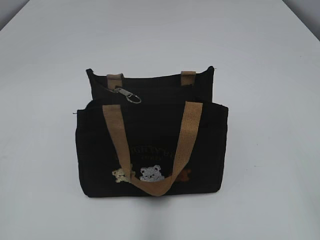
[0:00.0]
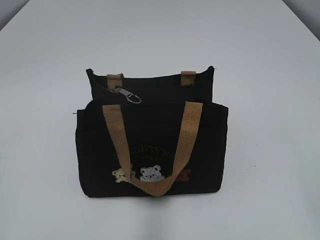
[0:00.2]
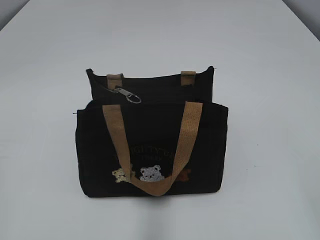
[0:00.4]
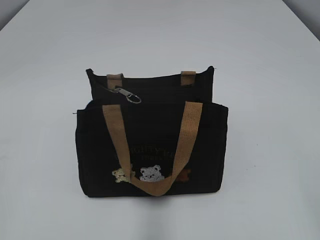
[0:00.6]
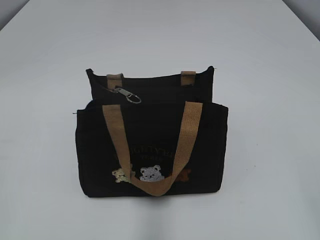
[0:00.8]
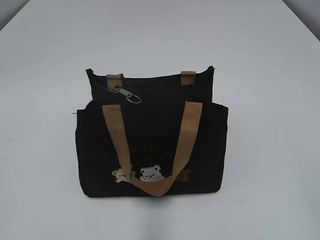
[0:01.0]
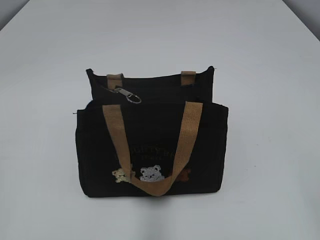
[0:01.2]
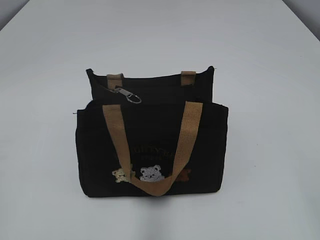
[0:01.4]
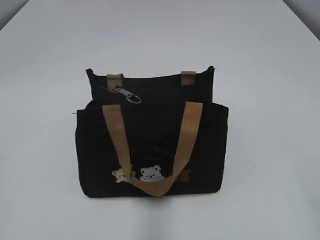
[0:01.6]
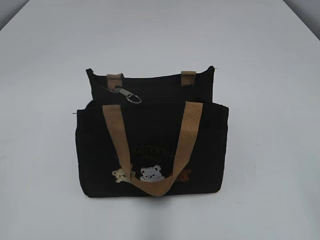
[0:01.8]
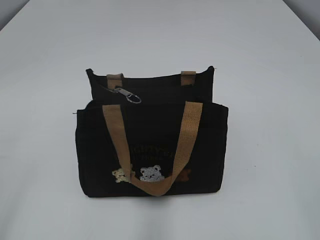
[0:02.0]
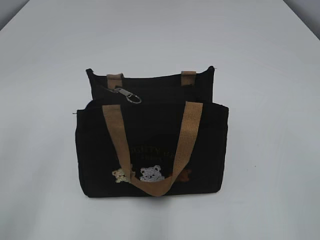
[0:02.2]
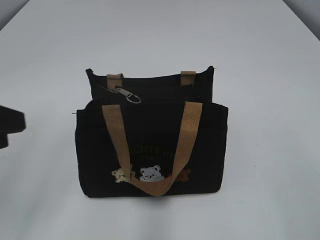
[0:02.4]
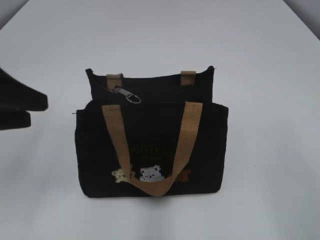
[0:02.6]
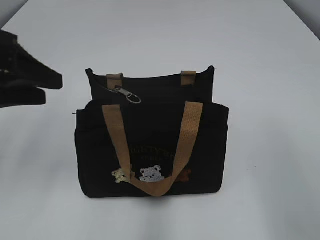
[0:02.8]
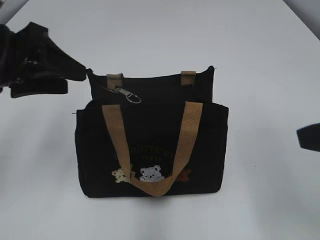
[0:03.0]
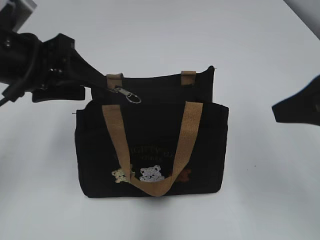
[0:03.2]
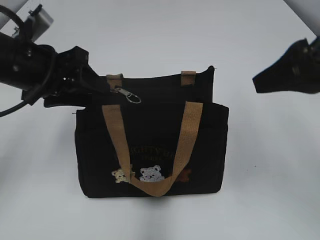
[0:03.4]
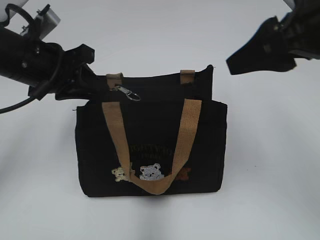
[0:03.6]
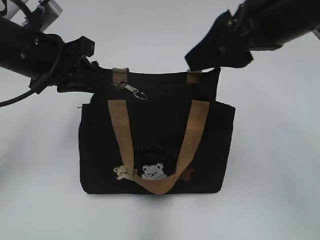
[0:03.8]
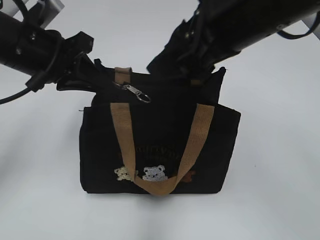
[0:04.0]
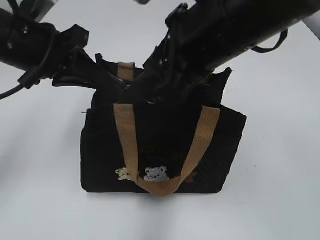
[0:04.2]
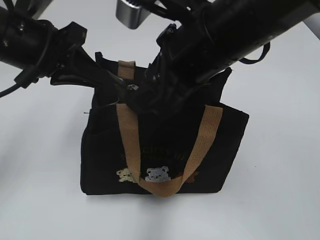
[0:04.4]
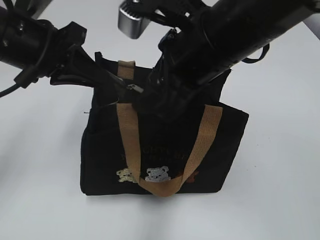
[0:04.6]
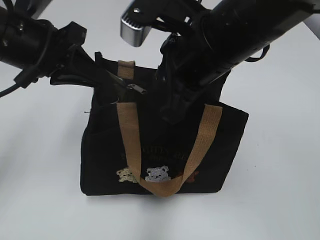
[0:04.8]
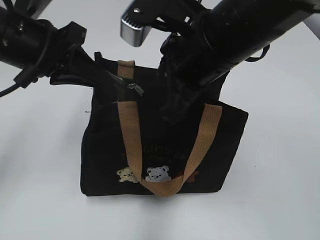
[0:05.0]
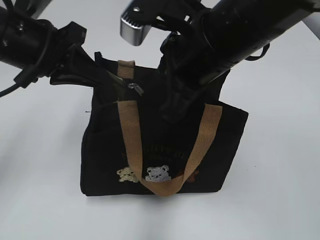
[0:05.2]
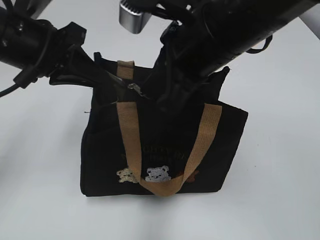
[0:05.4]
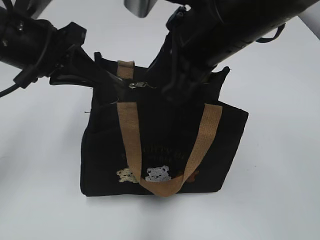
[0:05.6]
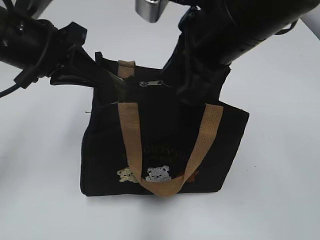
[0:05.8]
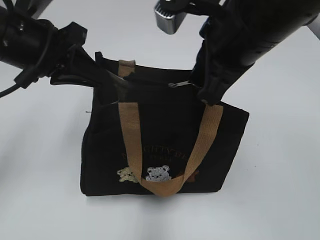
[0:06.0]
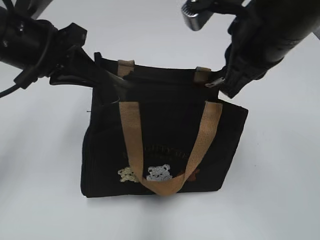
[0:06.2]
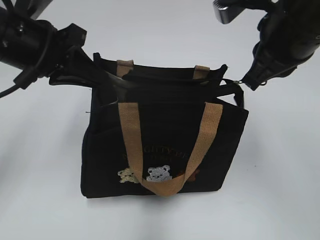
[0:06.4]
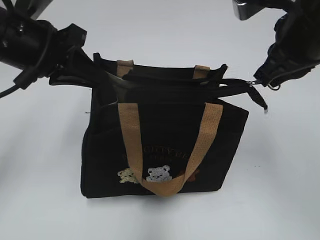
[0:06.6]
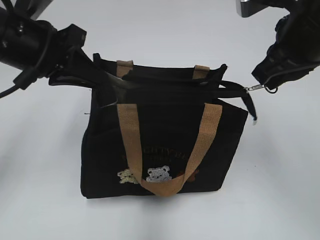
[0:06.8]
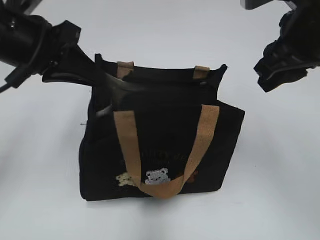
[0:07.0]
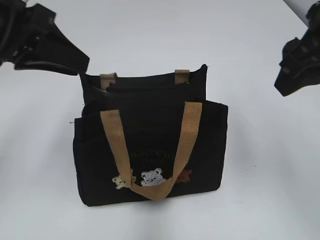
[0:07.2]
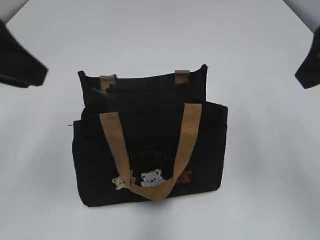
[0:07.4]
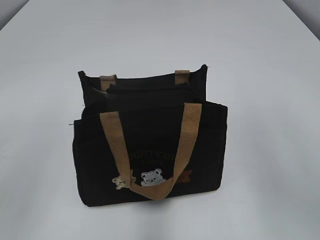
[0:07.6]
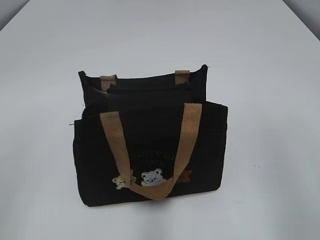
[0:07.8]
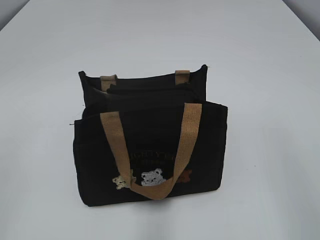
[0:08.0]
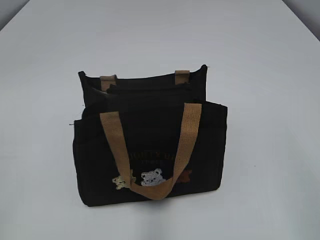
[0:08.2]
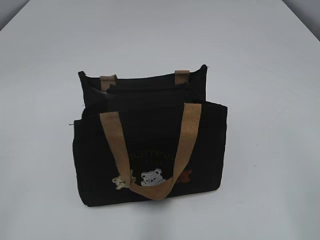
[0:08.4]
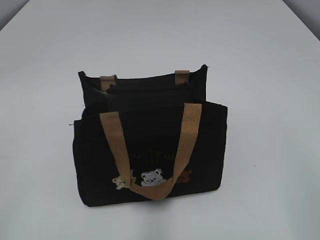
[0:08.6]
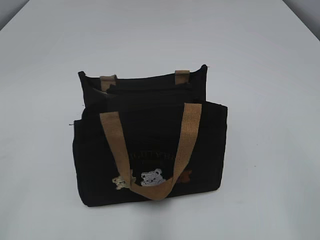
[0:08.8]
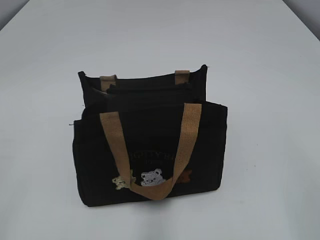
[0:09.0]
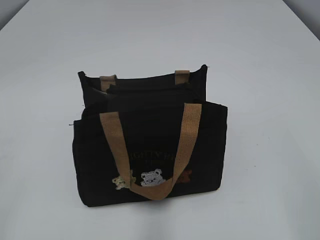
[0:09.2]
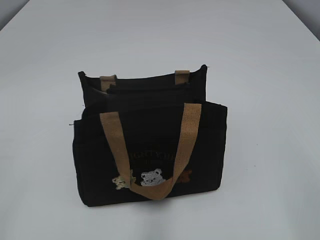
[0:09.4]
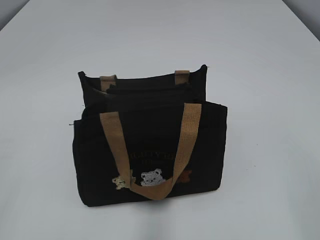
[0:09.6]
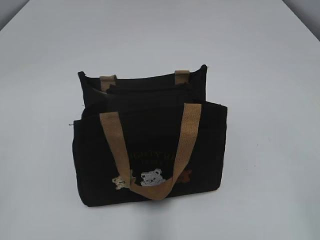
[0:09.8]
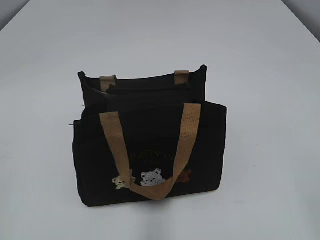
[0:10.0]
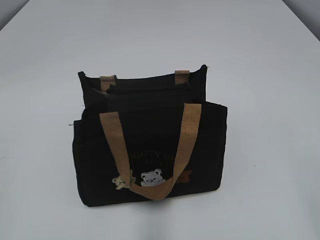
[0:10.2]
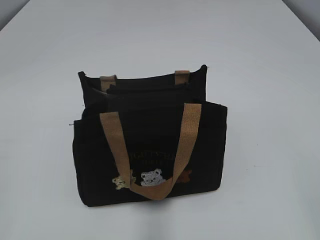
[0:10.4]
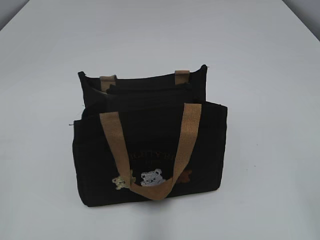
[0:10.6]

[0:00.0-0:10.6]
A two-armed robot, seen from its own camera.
Step, 0:00.0 to 0:06.8: Pull open the zipper with your right hand.
Step, 0:07.0 to 0:07.2: Hold the bag with your left hand.
0:01.6 to 0:03.0: The right gripper travels forward by some 15 cm; the left gripper heads forward, covering roughly 25 cm, and opens.
0:03.0 to 0:04.6: The left gripper closes up; the right gripper is displaced to the left and forward by approximately 20 cm.
0:04.6 to 0:06.0: The right gripper closes.
0:06.0 to 0:07.6: The left gripper heads backward, to the left and upward, covering roughly 15 cm, and opens its fingers, while the right gripper shifts approximately 15 cm to the right, backward and upward, and opens.

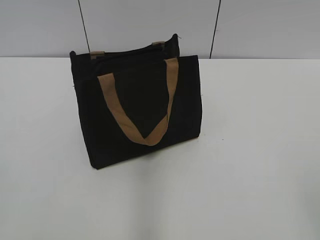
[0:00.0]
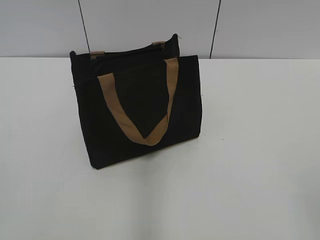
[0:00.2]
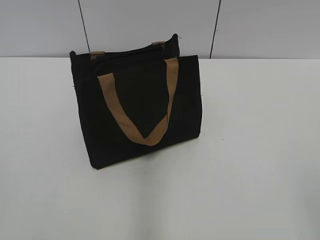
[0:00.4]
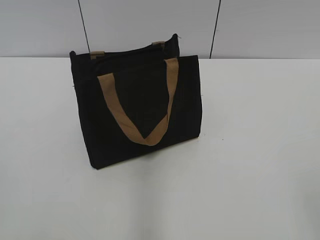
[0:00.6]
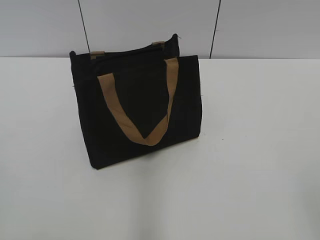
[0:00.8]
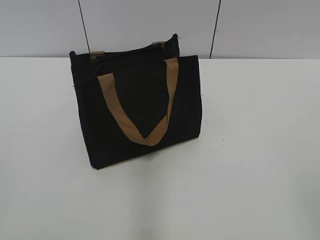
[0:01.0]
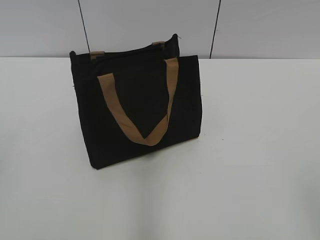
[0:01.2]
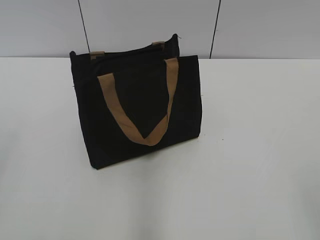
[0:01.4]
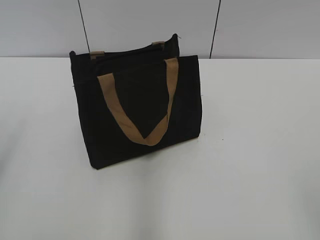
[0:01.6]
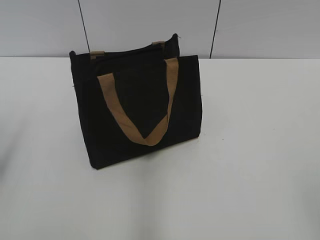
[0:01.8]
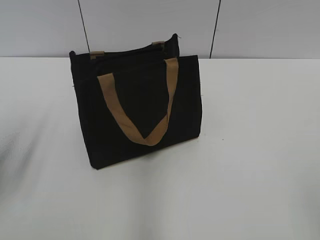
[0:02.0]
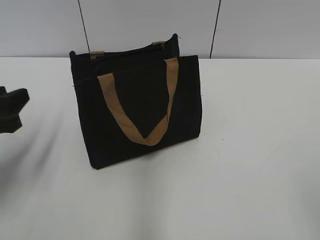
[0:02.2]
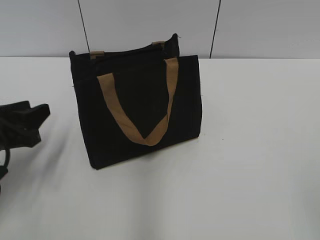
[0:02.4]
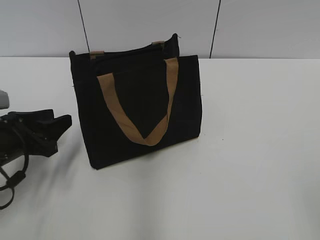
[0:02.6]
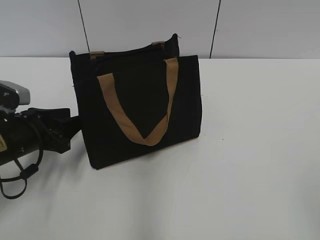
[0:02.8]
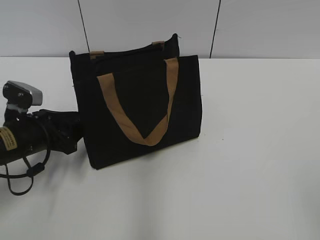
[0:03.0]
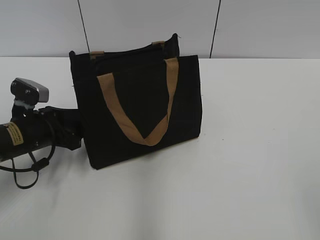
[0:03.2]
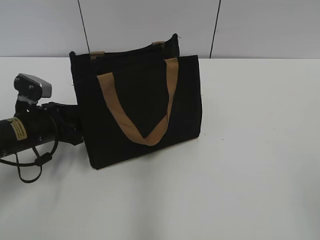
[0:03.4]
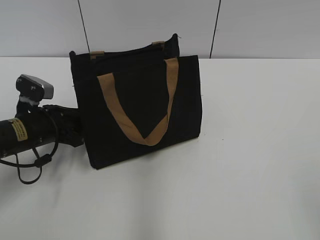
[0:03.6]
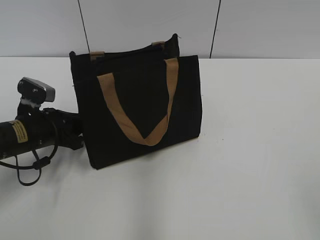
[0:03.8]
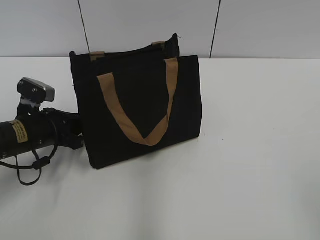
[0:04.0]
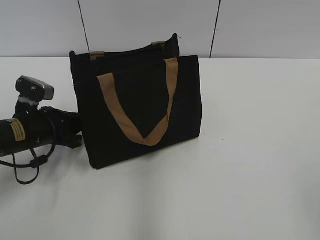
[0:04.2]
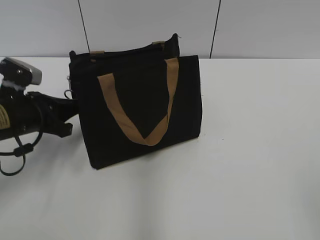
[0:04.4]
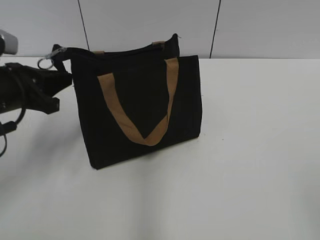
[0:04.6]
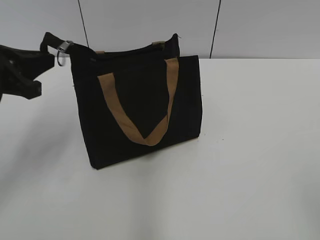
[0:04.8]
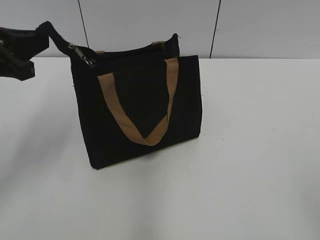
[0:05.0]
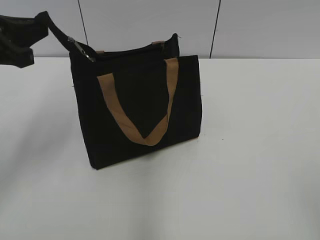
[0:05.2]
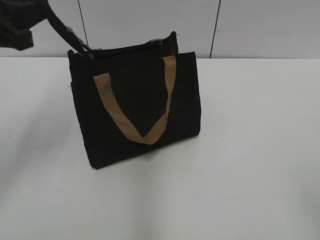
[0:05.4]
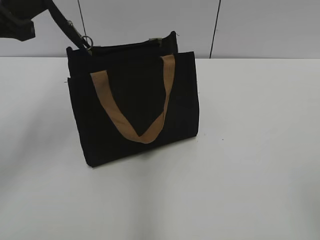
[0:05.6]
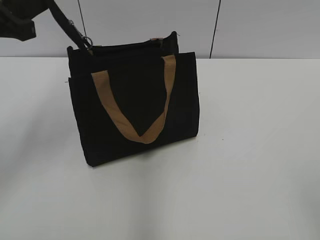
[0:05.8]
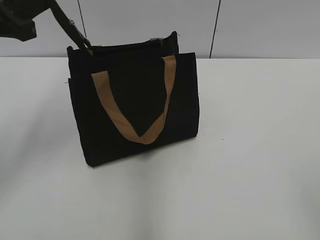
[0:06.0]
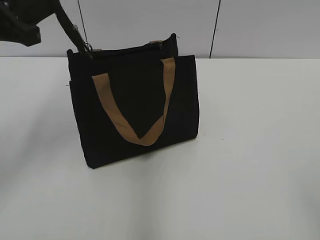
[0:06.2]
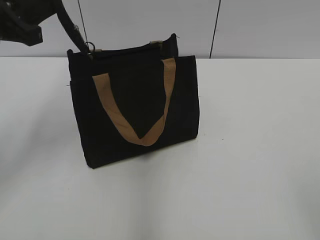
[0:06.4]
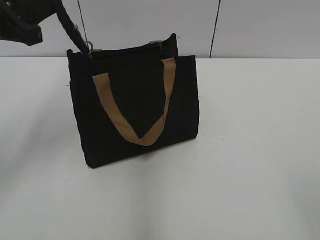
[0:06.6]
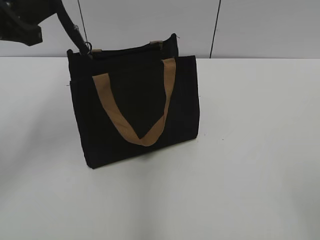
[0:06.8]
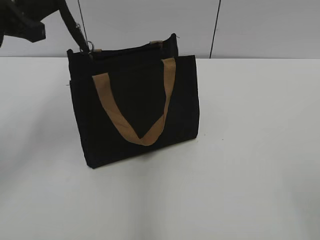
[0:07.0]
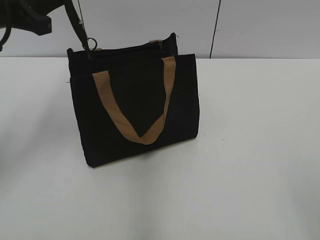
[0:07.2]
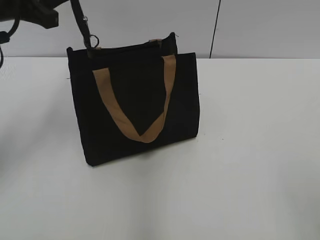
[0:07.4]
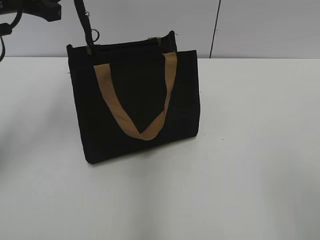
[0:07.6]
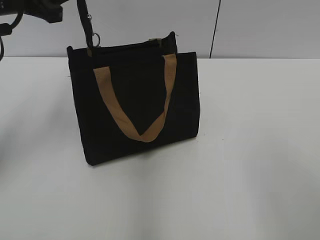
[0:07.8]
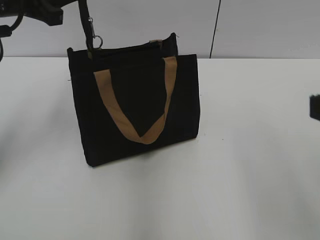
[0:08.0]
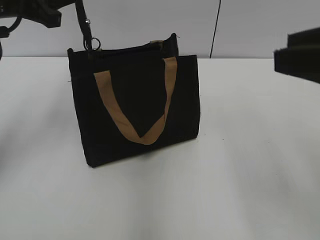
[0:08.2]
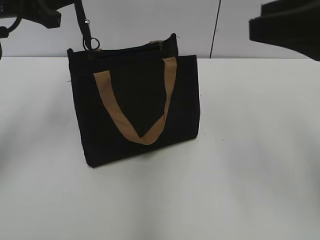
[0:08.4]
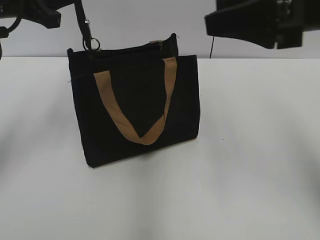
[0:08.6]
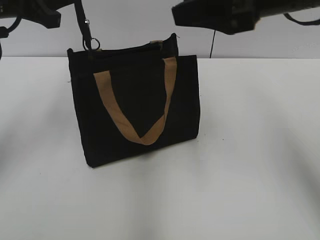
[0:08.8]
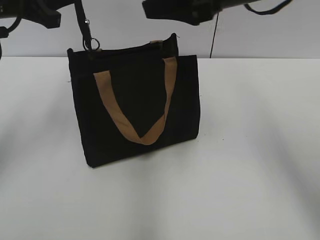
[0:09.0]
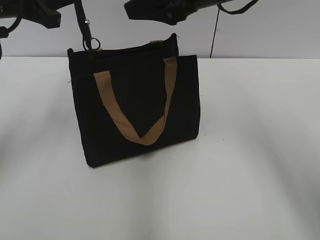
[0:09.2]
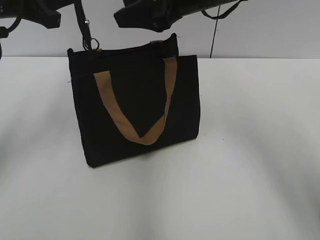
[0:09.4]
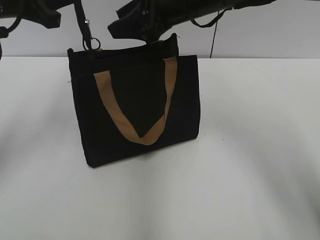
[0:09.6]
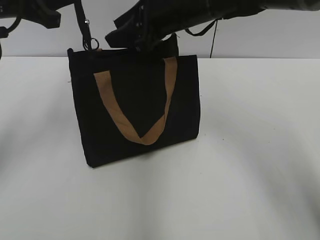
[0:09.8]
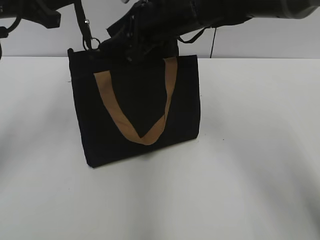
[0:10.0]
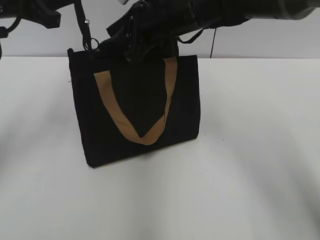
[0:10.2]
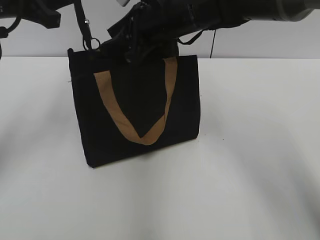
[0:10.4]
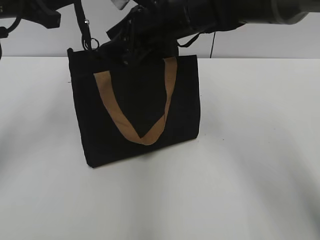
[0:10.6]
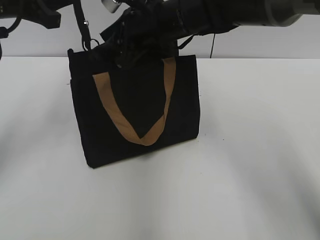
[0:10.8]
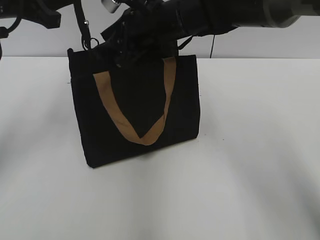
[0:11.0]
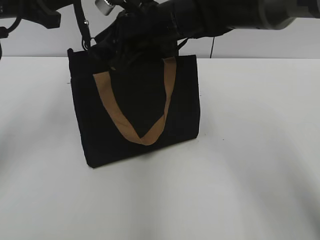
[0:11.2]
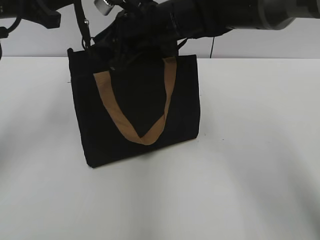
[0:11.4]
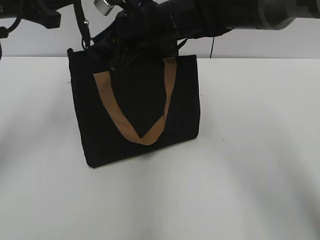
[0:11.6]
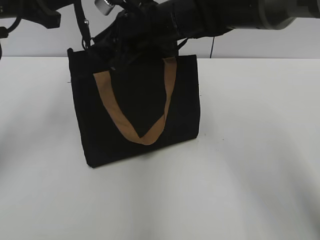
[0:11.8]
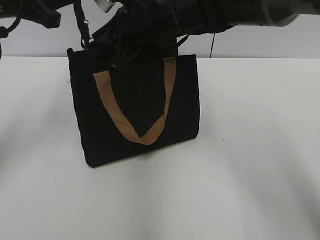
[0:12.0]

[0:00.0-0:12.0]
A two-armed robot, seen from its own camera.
0:01.6 to 0:03.0: The left gripper travels downward, forward and to the right by about 25 cm.
0:03.0 to 0:04.4: The left gripper closes its fingers.
0:04.4 to 0:06.0: The left gripper travels upward by about 20 cm.
0:06.0 to 0:07.6: The left gripper shifts about 5 cm forward.
0:07.6 to 0:09.0: The right gripper goes approximately 35 cm forward and to the left.
0:09.0 to 0:10.4: The right gripper shifts roughly 15 cm to the left, downward and forward.
0:10.4 to 0:12.0: The right gripper closes up.
